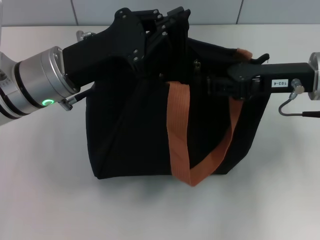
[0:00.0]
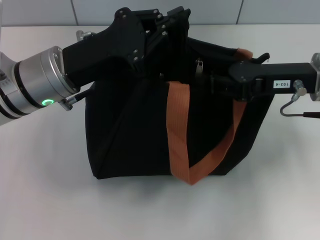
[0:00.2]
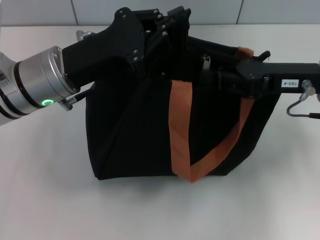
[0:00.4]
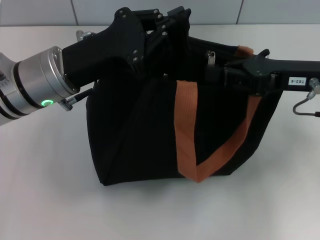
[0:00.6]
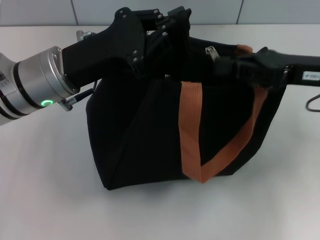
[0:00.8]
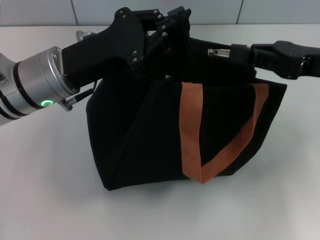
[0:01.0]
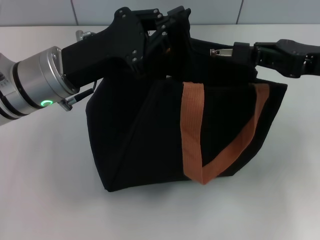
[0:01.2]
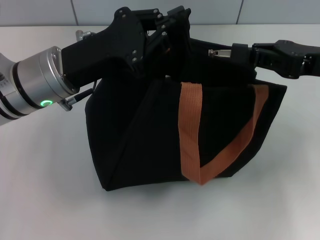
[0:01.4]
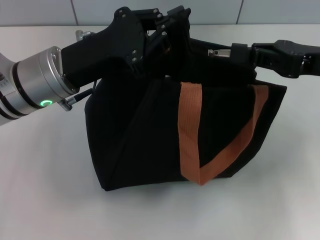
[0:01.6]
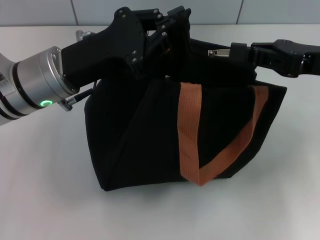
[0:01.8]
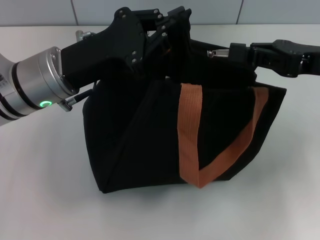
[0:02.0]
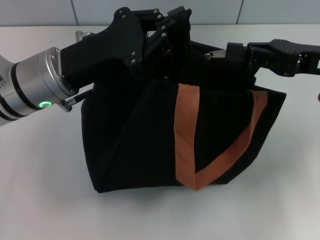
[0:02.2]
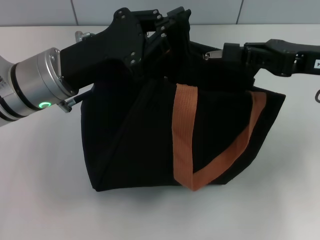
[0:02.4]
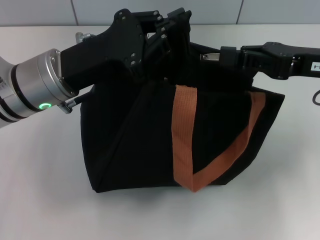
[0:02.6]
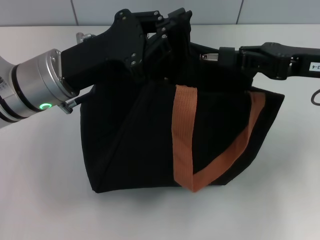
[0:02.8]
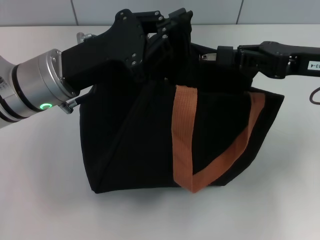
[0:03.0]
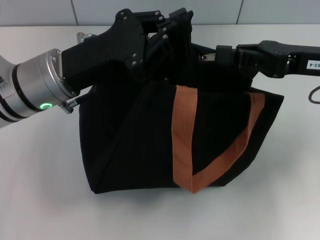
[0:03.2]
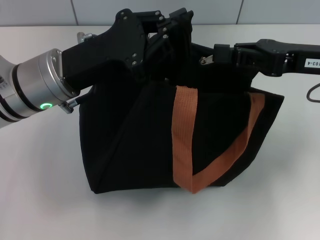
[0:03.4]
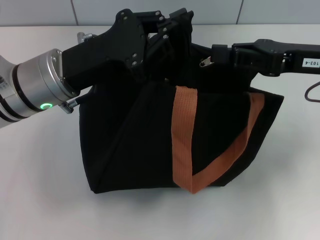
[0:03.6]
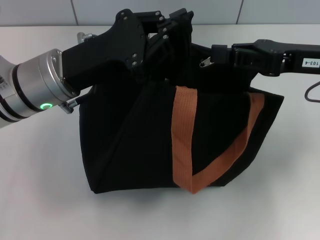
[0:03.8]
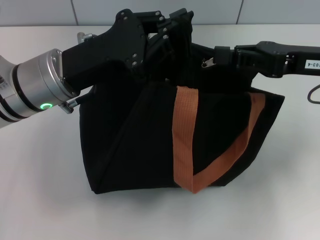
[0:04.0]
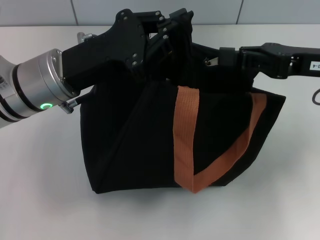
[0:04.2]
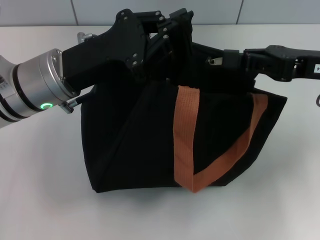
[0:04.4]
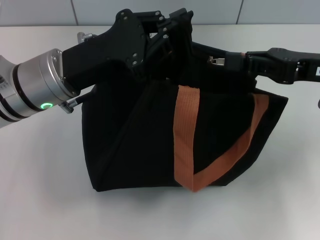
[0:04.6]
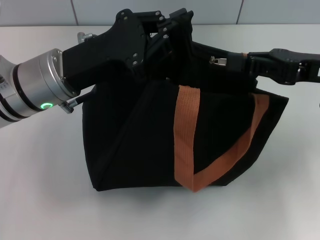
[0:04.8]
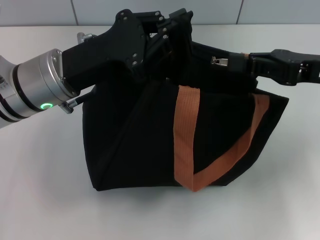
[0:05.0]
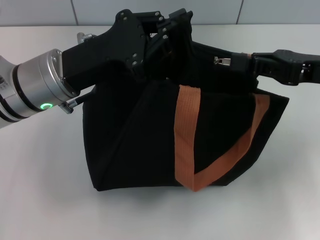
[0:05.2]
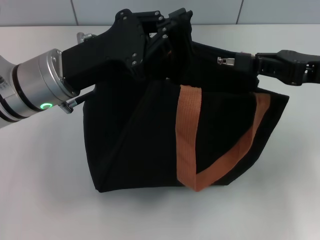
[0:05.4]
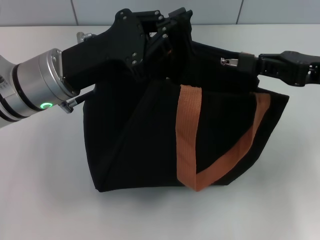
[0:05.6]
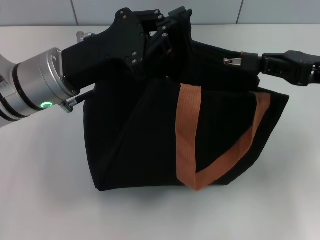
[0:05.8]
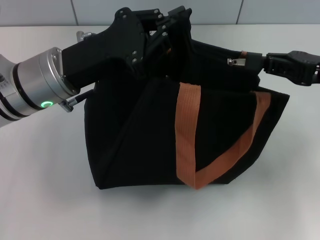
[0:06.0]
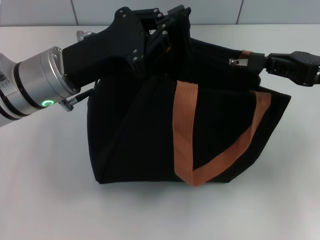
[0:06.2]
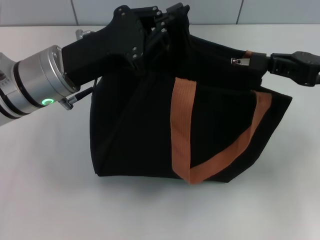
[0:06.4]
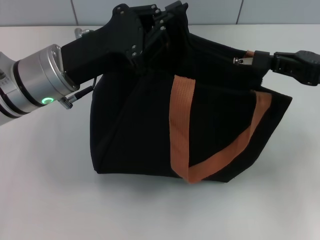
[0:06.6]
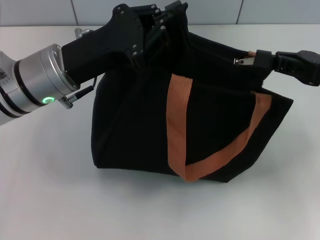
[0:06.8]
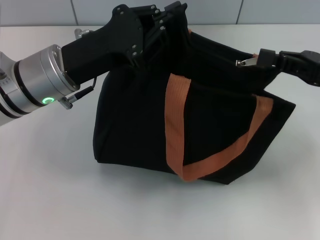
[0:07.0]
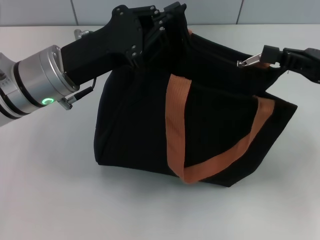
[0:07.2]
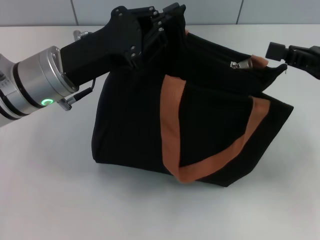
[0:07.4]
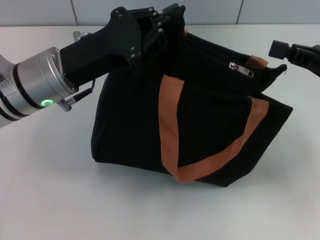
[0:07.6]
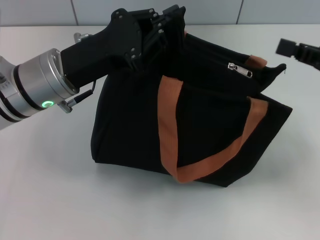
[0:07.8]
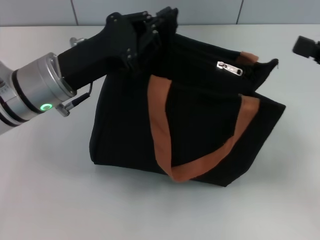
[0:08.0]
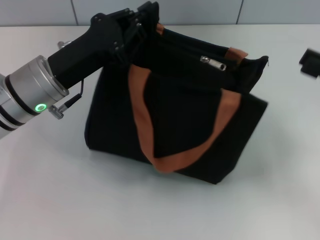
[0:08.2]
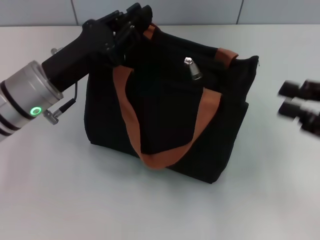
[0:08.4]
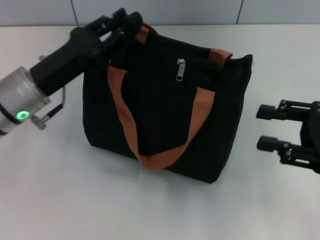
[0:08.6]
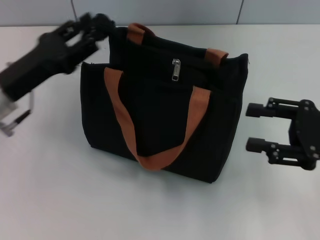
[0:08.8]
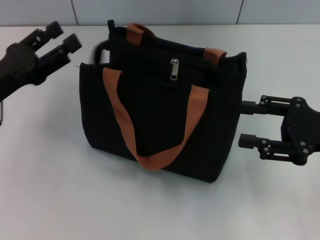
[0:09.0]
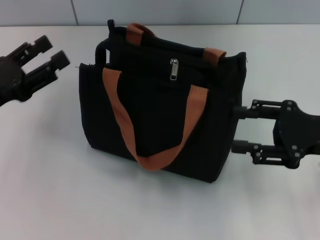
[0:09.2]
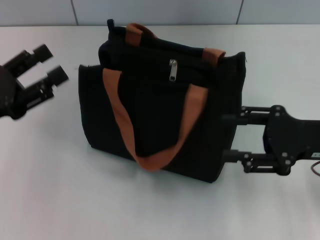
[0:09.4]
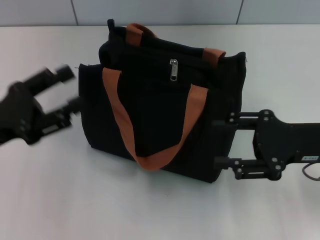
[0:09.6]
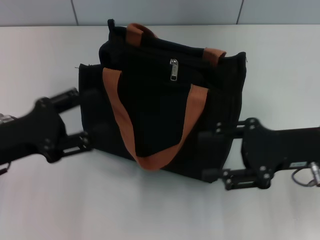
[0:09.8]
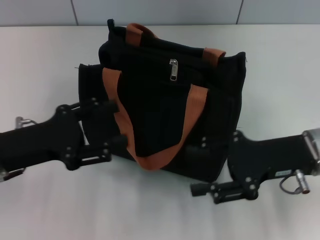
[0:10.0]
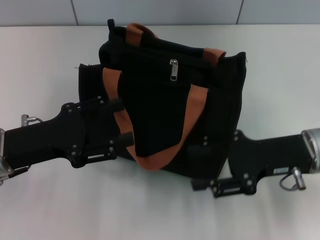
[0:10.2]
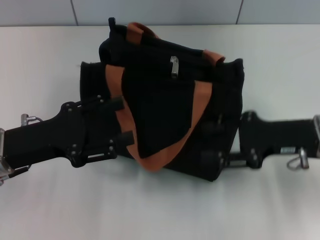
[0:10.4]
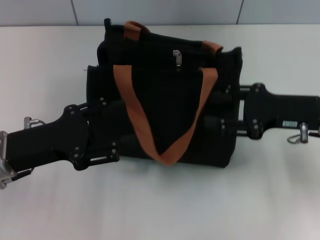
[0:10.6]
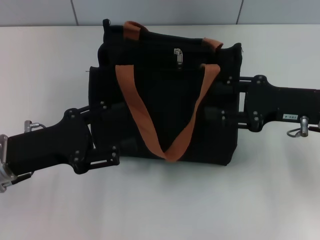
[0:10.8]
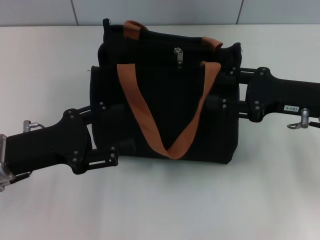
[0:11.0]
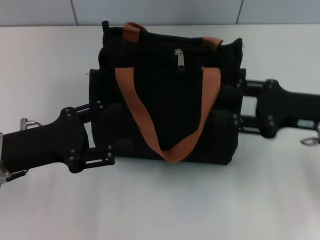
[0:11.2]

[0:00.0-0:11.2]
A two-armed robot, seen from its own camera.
Step, 0:00.0 to 0:07.2: Pull up the zipper with your right hand.
Step, 0:07.4 to 0:08.8: Grab the zipper with your left hand.
0:00.0 to 0:01.6: The right gripper shifts by roughly 5 cm.
0:01.6 to 0:06.4: The grippers move only a little.
0:06.4 to 0:08.0: There are only small adjustments of the grippers.
0:08.0 to 0:09.6: The left gripper heads to the left and backward, covering approximately 15 cm, and opens. Meanwhile the right gripper travels to the left by approximately 5 cm, and opens its fingers.

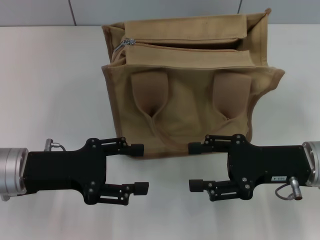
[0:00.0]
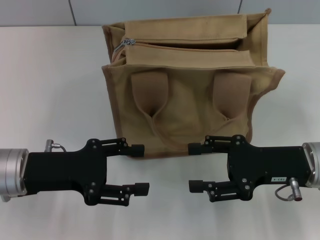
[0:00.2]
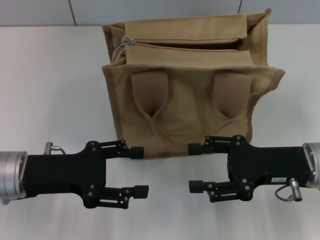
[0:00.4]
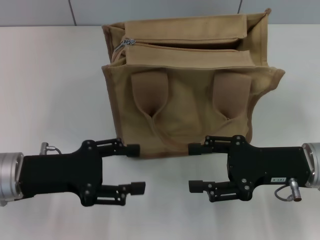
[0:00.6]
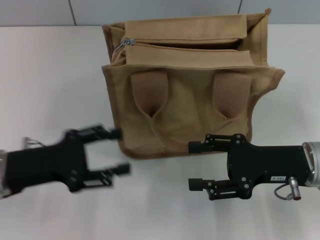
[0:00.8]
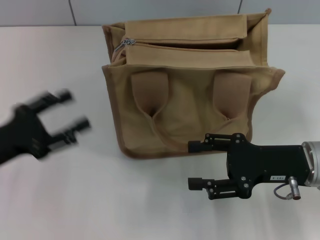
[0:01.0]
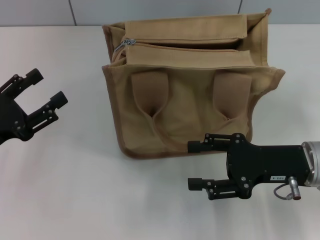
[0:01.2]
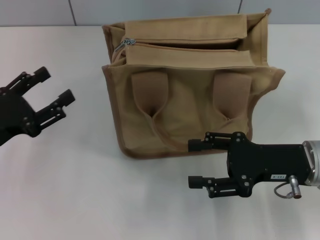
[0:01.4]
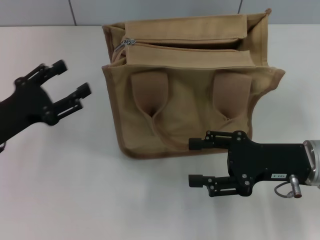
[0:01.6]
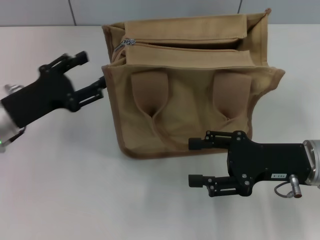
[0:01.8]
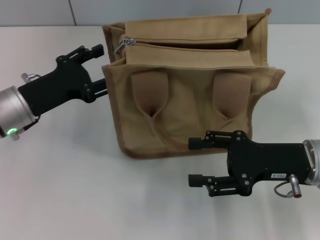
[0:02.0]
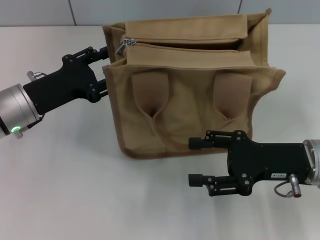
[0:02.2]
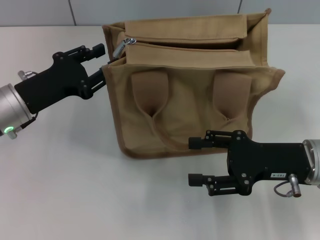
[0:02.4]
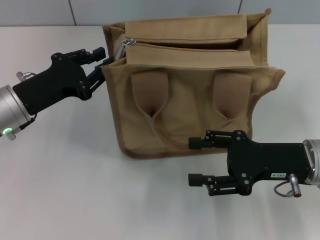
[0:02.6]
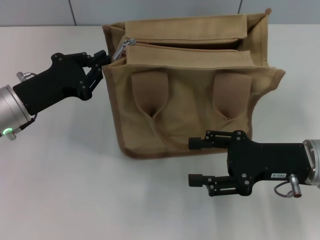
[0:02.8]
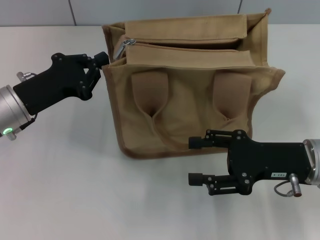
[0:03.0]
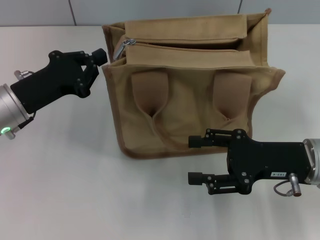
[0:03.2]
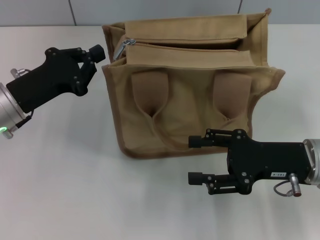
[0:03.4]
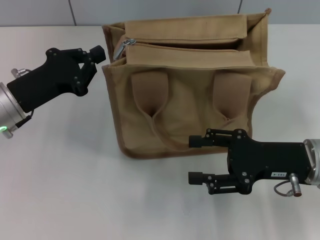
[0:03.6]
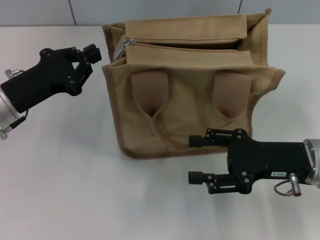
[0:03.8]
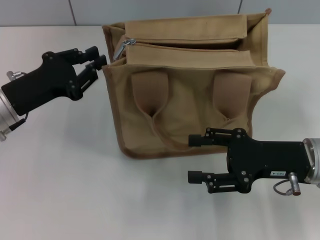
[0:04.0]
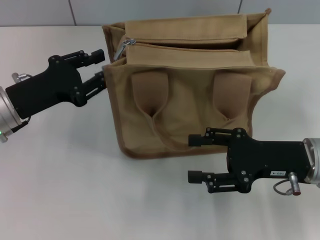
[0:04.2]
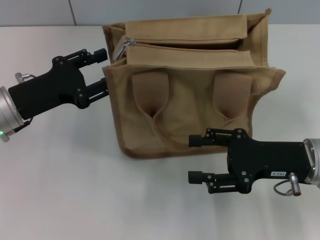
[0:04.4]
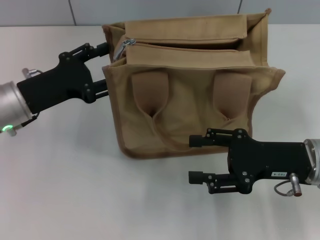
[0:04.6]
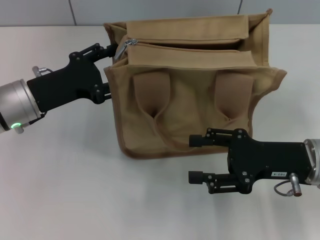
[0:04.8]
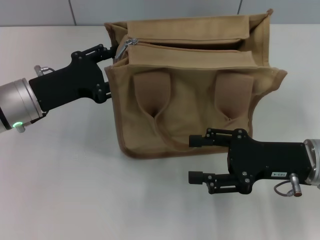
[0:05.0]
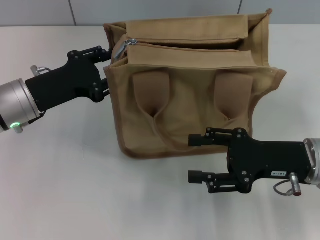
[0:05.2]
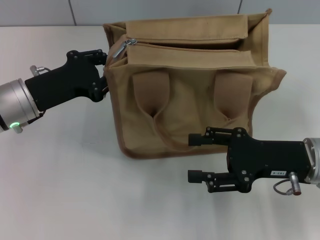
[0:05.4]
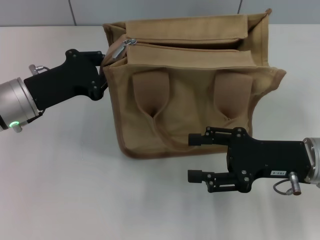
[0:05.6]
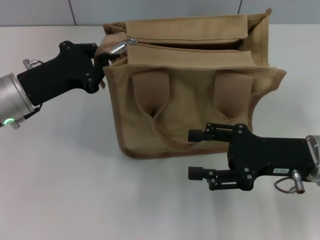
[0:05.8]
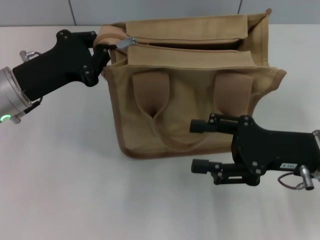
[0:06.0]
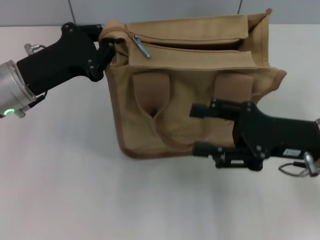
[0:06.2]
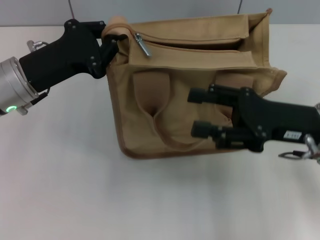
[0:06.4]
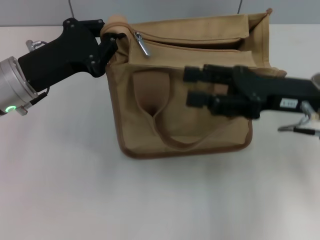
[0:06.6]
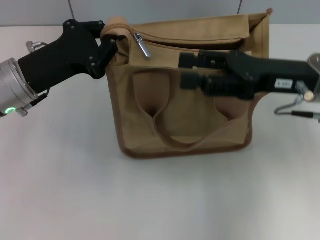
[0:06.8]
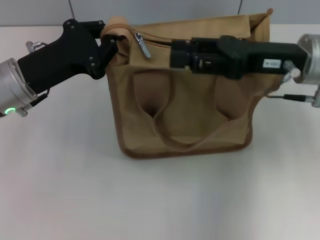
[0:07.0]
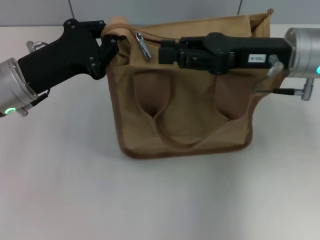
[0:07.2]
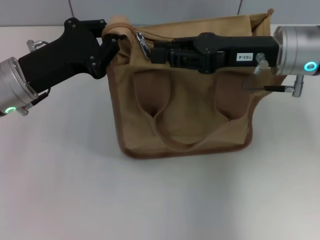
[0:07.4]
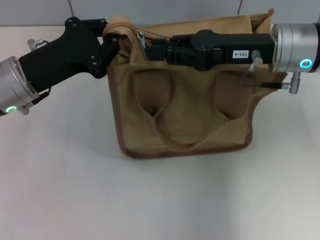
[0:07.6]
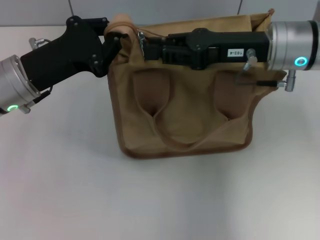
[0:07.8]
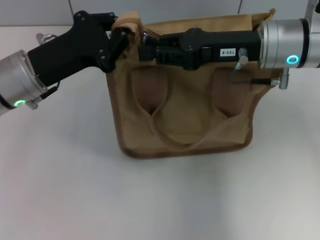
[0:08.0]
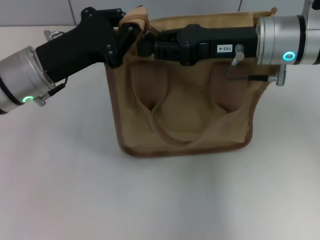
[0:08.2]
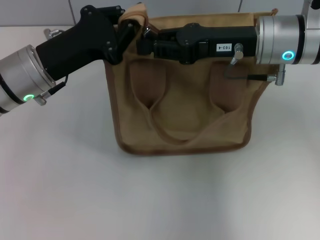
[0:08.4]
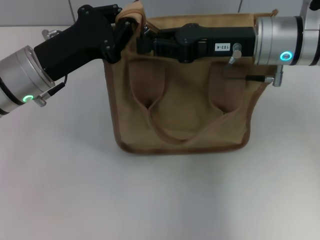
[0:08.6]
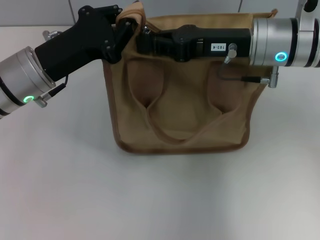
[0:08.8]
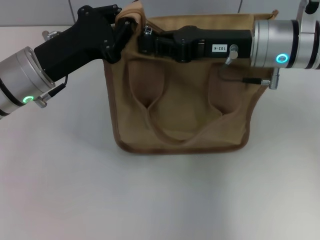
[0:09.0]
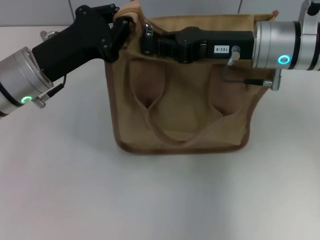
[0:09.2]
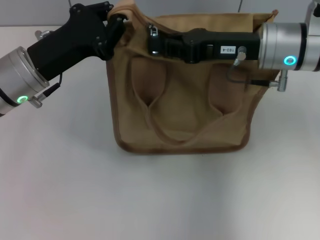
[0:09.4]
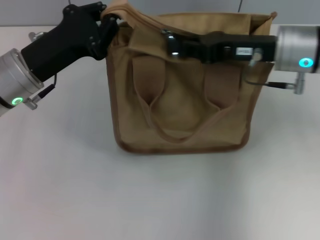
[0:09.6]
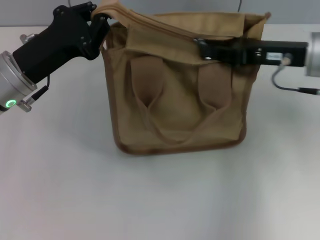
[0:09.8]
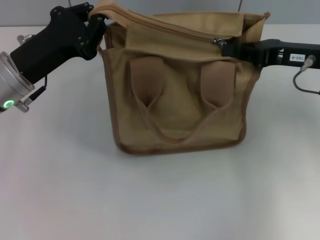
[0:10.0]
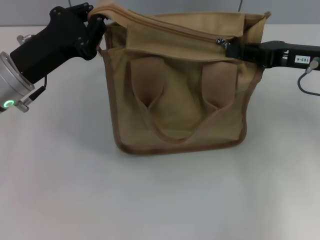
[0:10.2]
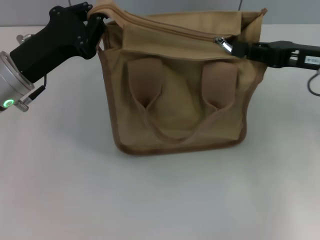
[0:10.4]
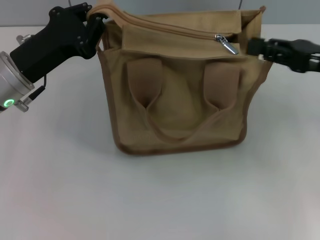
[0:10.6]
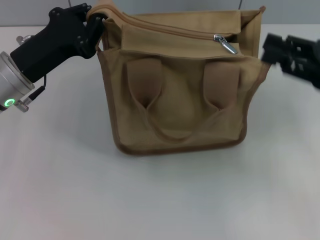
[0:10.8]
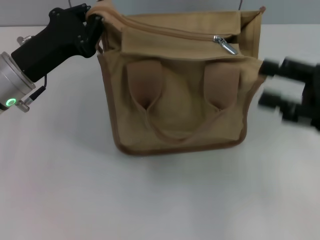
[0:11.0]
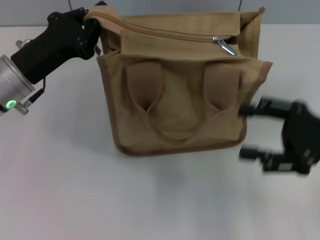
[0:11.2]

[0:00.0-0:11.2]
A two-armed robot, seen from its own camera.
Step, 0:00.0 to 0:10.6: Pull up the zipper with your right hand.
0:00.0 to 0:01.6: The left gripper shifts by about 5 cm.
0:01.6 to 0:03.2: The left gripper changes place by some 5 cm, and closes up.
0:03.2 to 0:04.8: The left gripper opens.
0:04.8 to 0:06.4: The left gripper closes its fingers.
0:06.4 to 0:08.0: The right gripper shifts roughly 10 cm forward, to the left and upward, and closes up.
0:08.0 to 0:09.6: The right gripper closes its fingers.
0:09.6 to 0:11.2: The right gripper heads backward and to the right, covering approximately 15 cm, and opens up.
